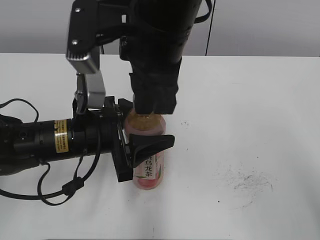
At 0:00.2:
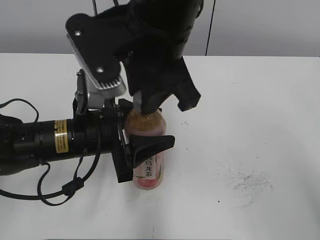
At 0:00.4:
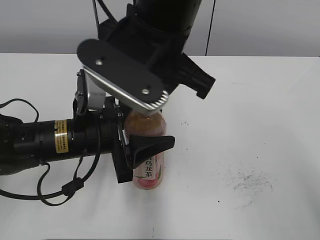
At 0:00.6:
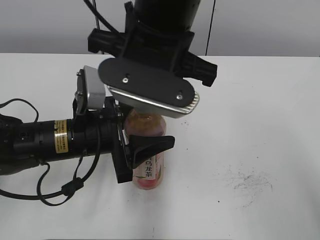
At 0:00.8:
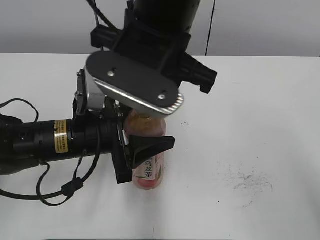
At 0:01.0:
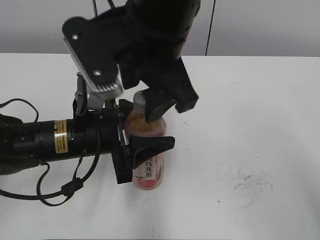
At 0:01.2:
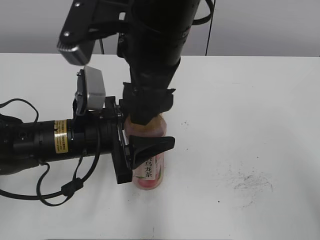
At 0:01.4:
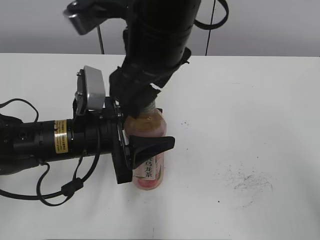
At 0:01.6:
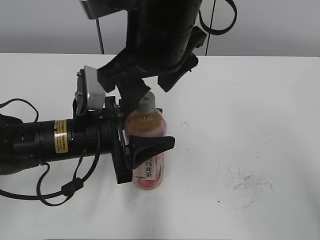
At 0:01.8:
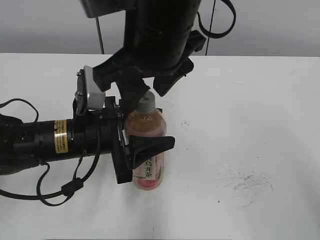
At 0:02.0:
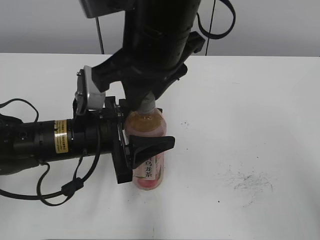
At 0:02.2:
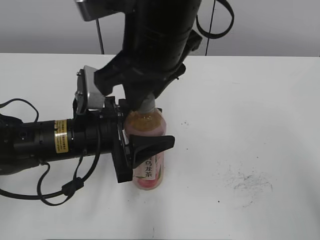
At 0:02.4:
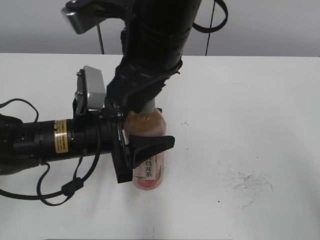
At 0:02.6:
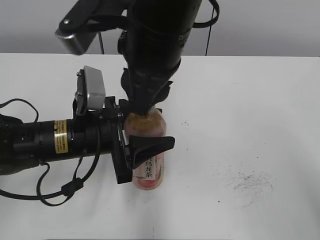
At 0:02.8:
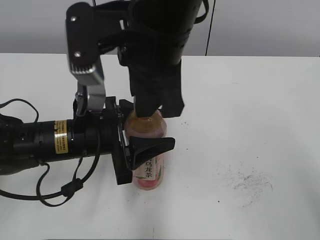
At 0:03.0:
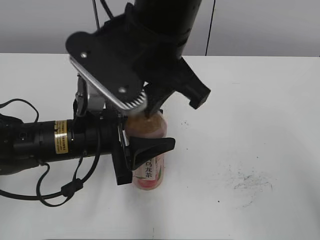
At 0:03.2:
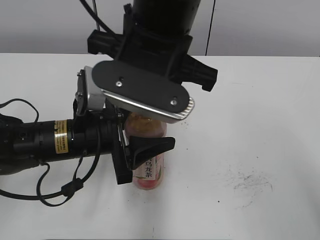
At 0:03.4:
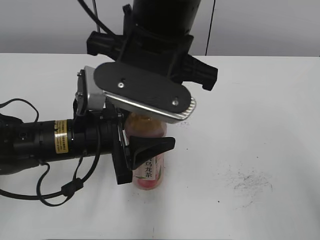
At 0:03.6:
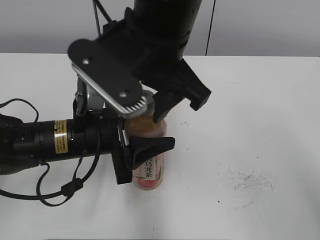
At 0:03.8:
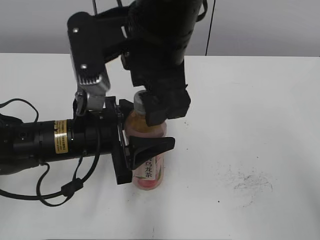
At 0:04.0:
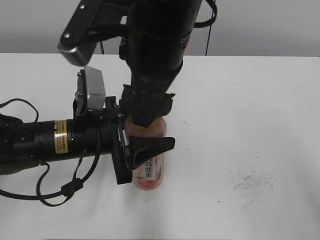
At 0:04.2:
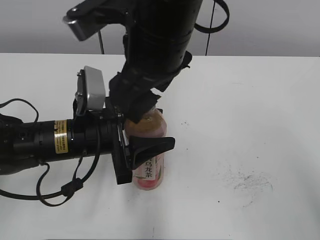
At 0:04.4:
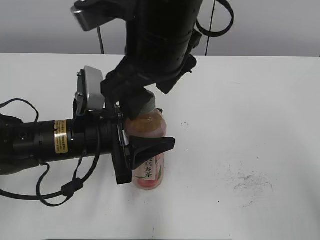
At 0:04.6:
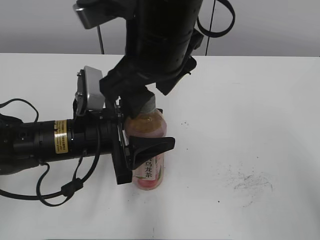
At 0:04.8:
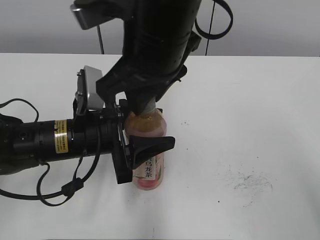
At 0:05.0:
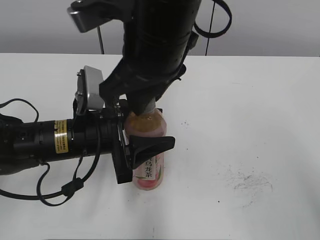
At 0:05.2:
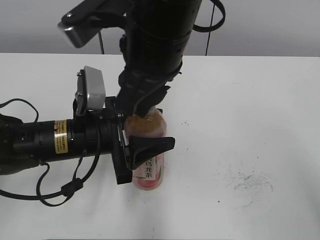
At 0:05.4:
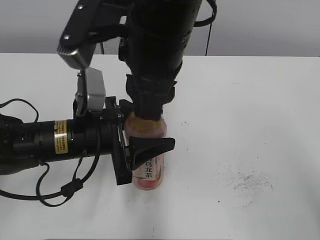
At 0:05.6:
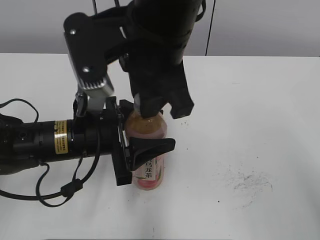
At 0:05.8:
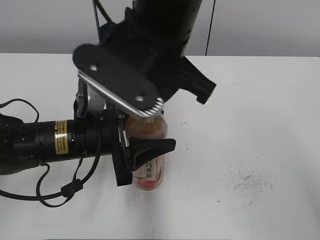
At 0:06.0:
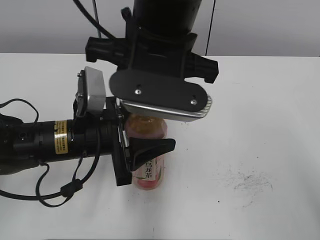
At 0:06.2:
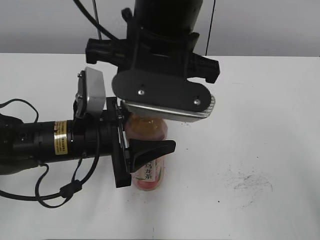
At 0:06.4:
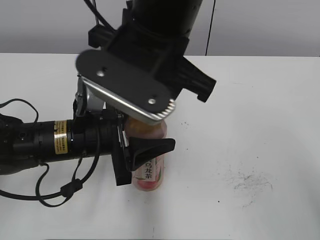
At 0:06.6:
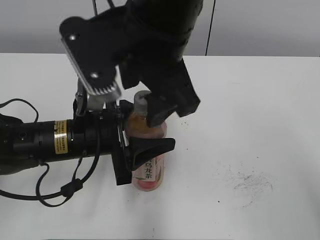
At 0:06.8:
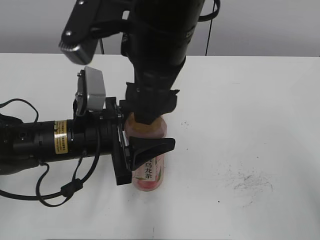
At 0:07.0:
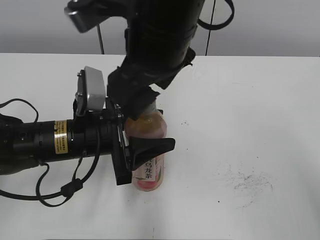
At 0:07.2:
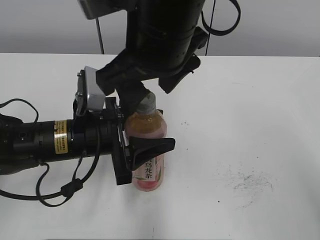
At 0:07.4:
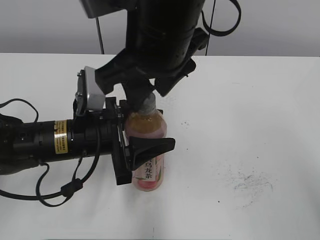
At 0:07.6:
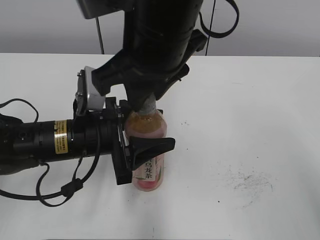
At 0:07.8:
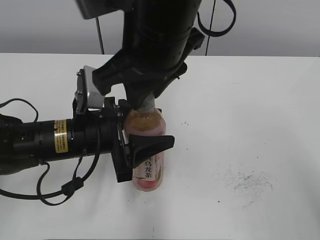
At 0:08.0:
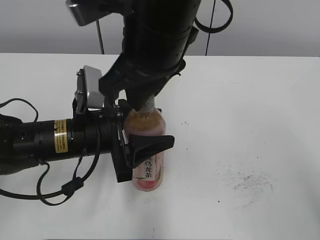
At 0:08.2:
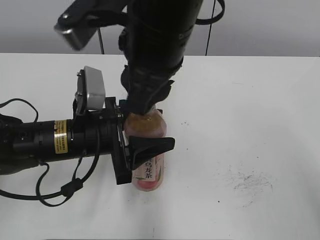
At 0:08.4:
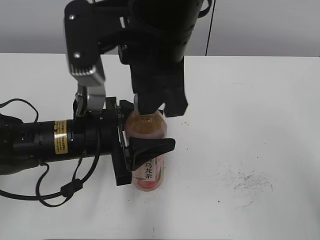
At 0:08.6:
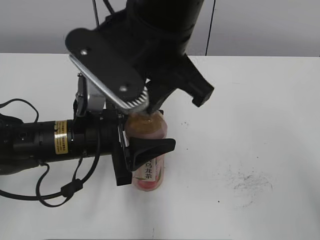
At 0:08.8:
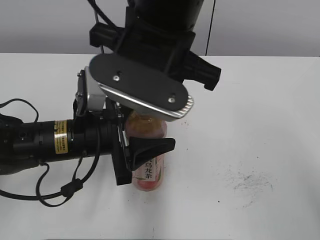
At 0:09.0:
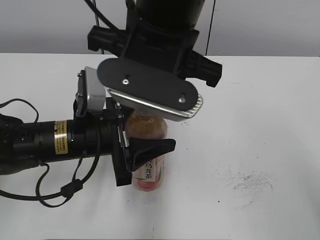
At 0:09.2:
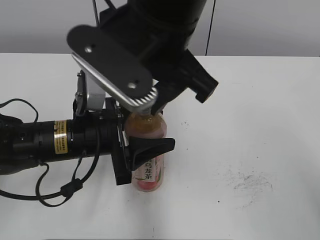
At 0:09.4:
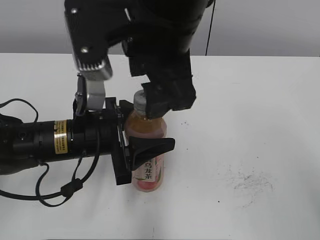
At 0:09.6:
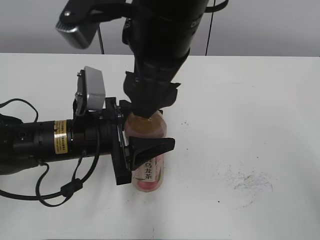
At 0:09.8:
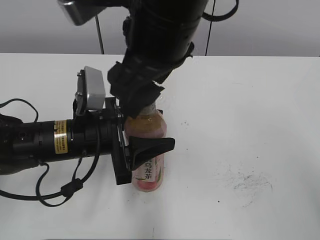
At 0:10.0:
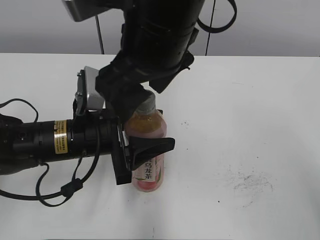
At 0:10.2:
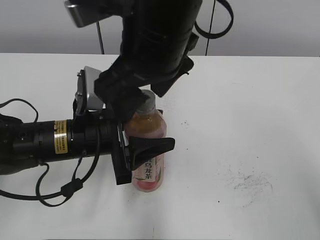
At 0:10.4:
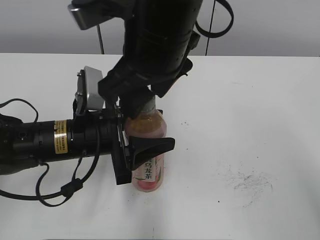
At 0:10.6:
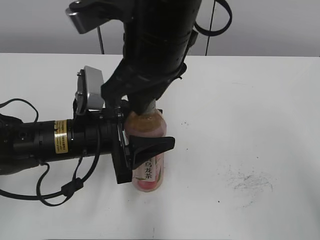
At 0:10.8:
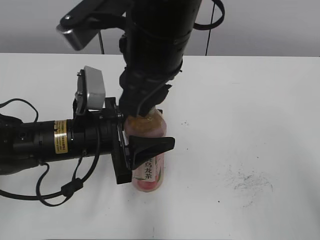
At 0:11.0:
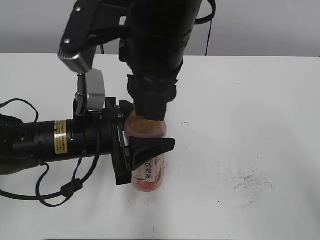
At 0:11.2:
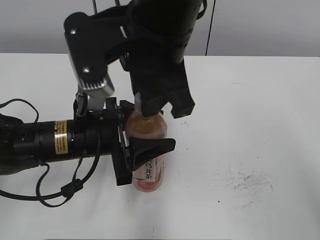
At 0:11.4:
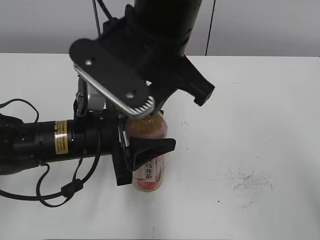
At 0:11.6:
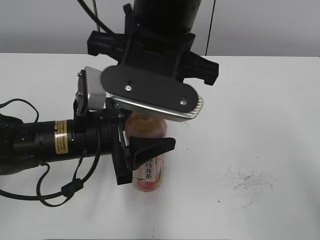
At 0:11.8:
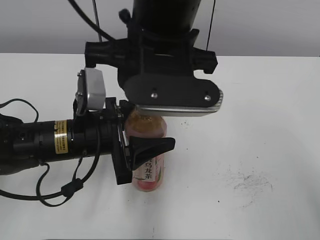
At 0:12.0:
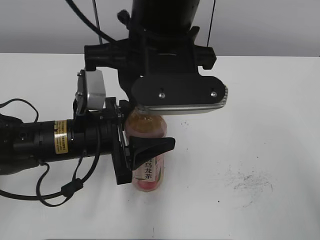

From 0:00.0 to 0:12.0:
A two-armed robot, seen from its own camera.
From 0:00.0 to 0:01.6: The right gripper opens.
From 0:01.6 to 0:03.0: The right gripper closes.
From 0:03.0 to 0:04.4: The right gripper opens up.
From 0:04.4 to 0:06.0: The right gripper closes.
From 0:06.0 to 0:07.6: The right gripper opens, then closes once more.
From 0:09.0 to 0:10.4: The right gripper opens its fingers.
From 0:10.4 to 0:12.0: The right gripper closes its fingers.

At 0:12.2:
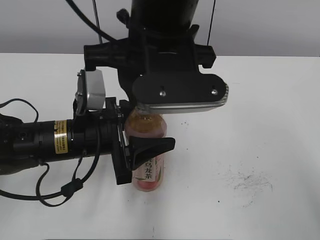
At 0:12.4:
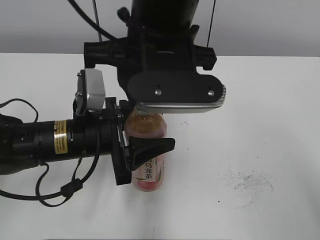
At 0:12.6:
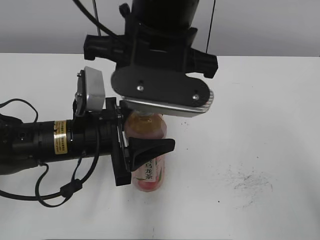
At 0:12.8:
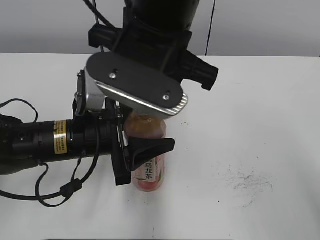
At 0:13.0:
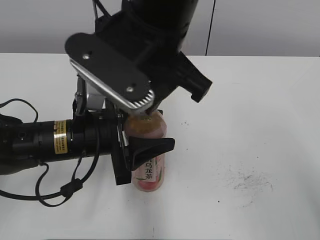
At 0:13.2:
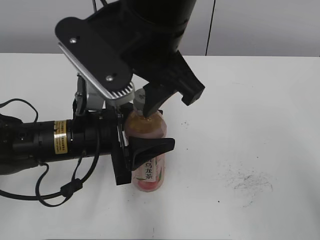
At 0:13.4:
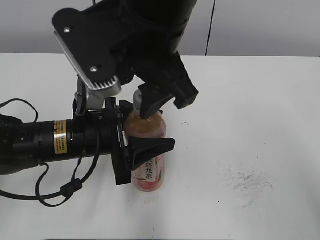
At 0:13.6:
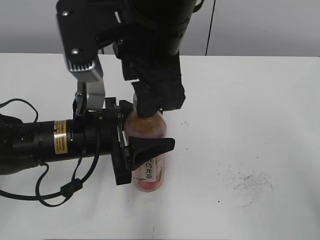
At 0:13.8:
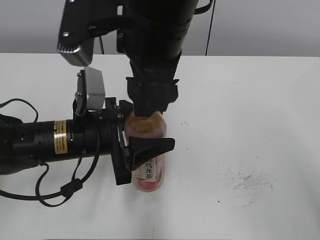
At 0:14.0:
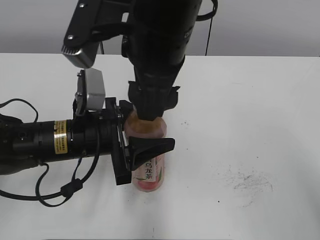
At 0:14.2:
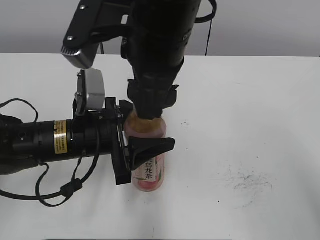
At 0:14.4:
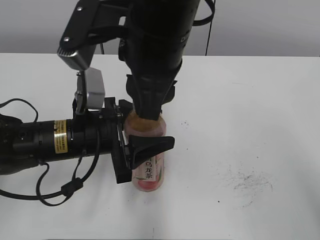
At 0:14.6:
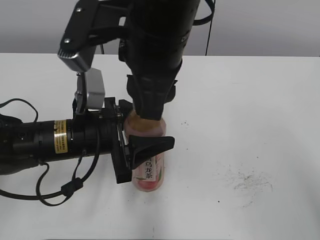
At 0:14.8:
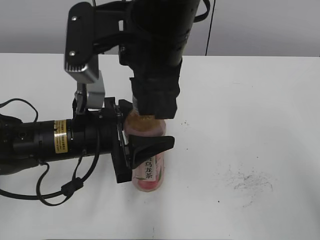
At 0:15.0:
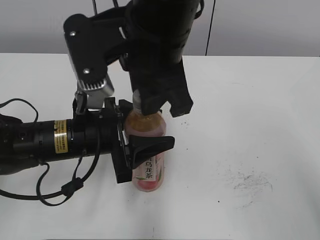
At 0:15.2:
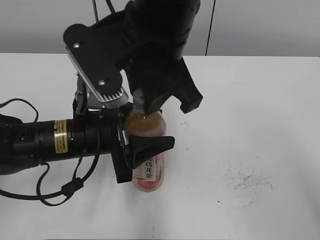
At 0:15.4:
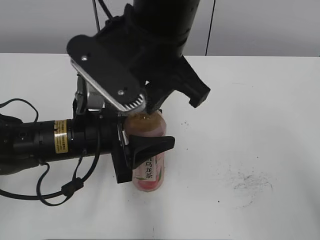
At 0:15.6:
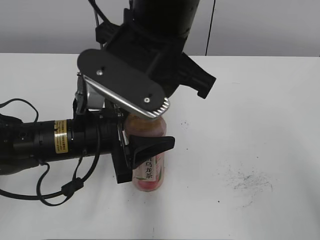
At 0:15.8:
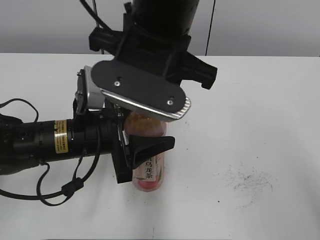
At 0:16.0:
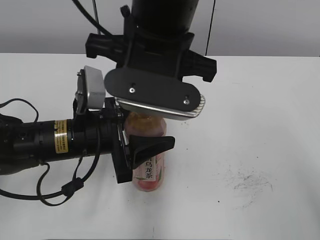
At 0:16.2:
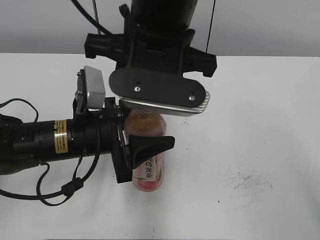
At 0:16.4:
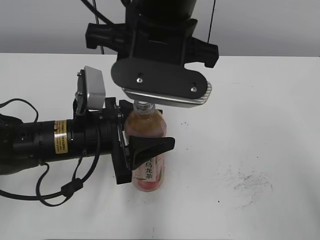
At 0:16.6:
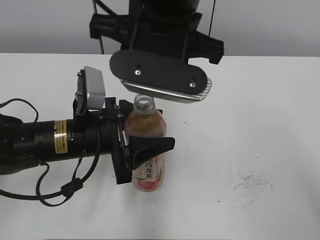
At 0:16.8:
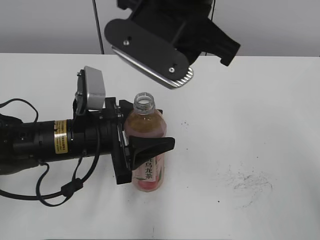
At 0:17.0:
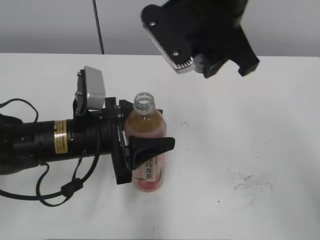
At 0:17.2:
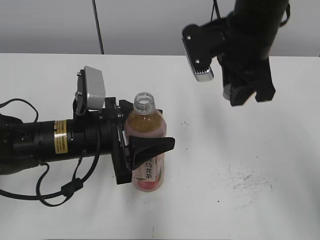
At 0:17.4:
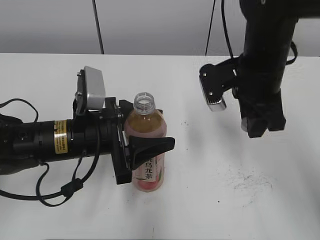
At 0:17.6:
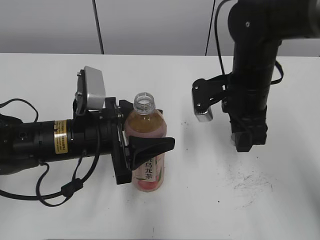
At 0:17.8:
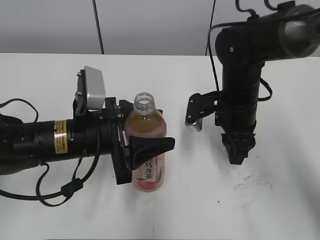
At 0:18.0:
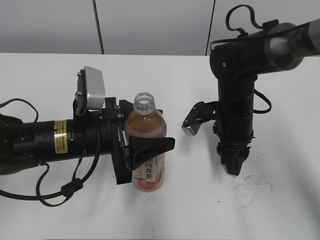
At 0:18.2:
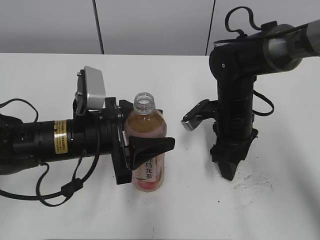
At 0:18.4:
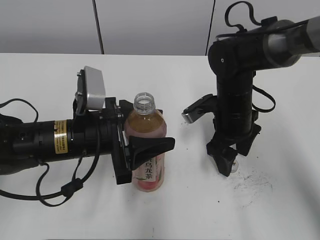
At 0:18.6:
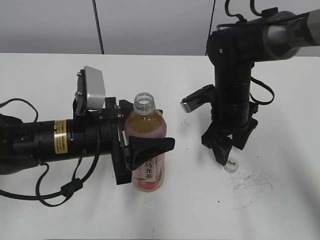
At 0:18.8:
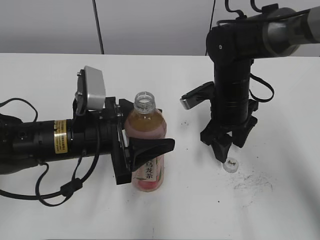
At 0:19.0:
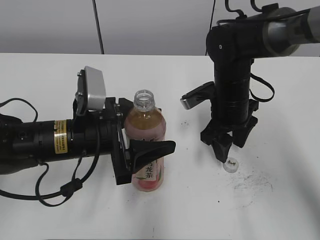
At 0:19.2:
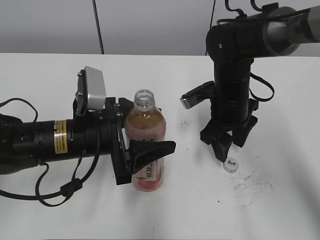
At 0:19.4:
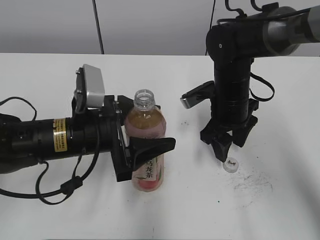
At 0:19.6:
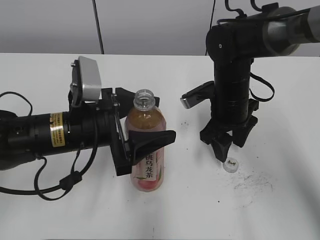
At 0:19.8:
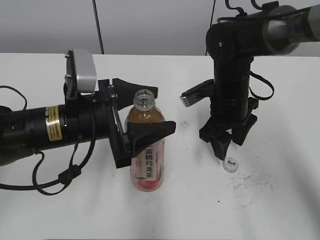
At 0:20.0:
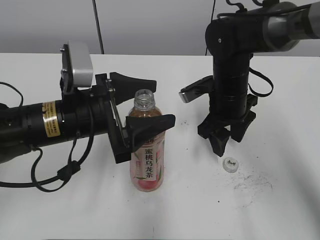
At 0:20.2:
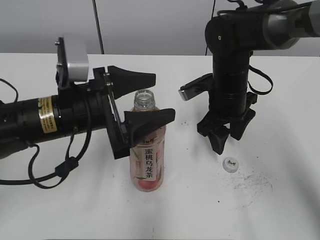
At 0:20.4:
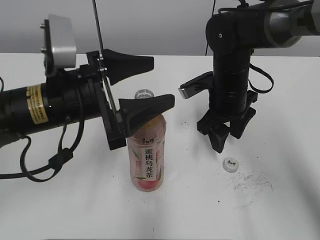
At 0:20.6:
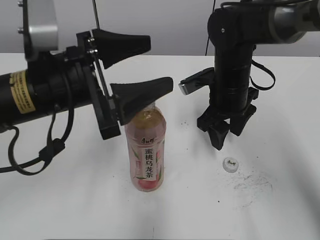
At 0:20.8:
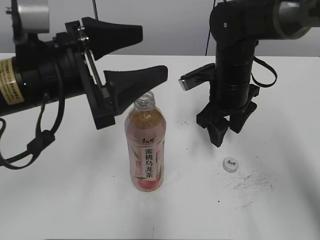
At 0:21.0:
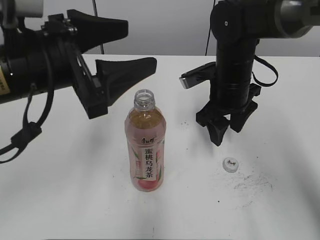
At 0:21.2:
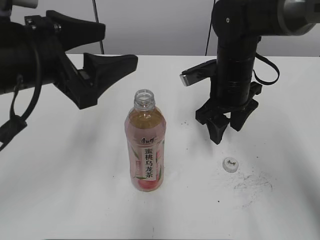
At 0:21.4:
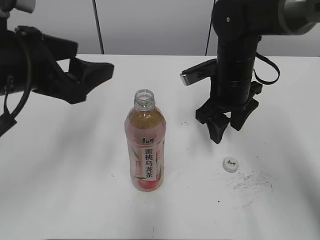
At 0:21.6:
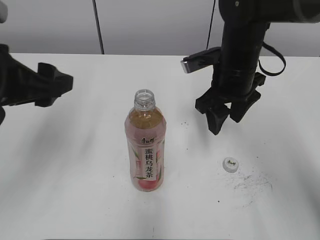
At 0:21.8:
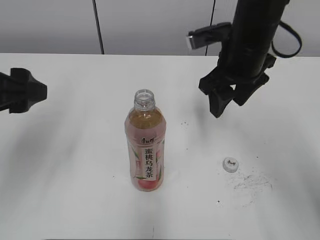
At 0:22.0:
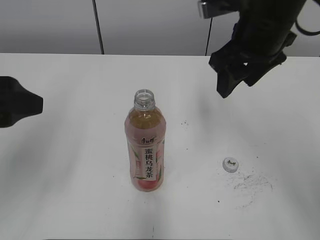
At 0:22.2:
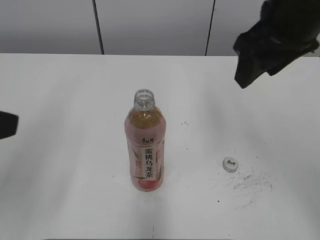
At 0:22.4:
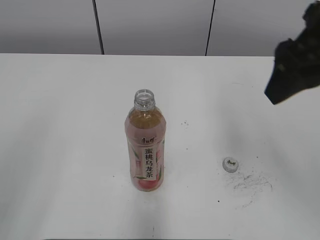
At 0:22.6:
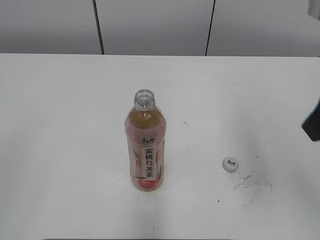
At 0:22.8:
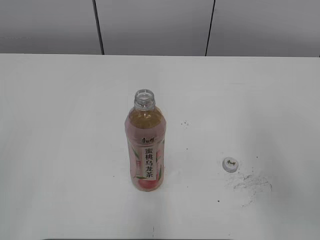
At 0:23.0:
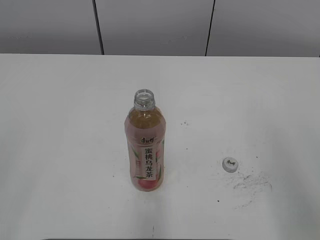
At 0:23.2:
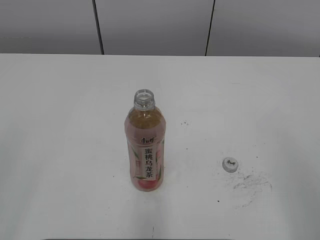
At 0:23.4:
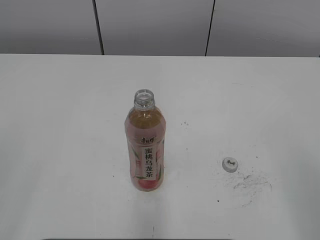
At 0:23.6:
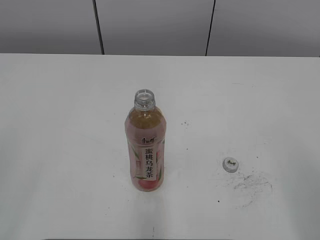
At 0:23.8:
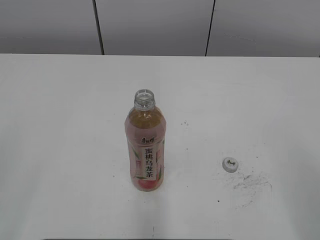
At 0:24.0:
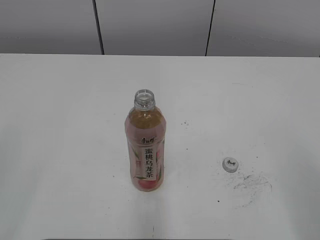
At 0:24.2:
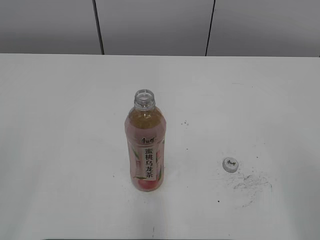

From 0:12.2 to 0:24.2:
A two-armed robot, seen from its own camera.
Step, from 0:16.6 to 0:19.0: Place the bottle cap on the right.
Step, from 0:19.4 to 0:21.0: Place the Peach Oolong Tea with the left hand.
From 0:12.2 to 0:13.8: The right gripper opens its fingers.
From 0:13.8 to 0:15.2: The right gripper closes up.
From 0:16.6 to 0:18.2: The right gripper moves downward and to the right, roughly 25 cm, and opens.
From 0:19.8 to 0:21.2: The left gripper heads upward, covering approximately 10 cm.
From 0:21.2 to 0:22.6: The left gripper travels backward and to the left by roughly 25 cm; the right gripper moves backward, upward and to the right, about 25 cm.
From 0:22.6 to 0:24.2: The right gripper moves backward and to the right, approximately 20 cm.
